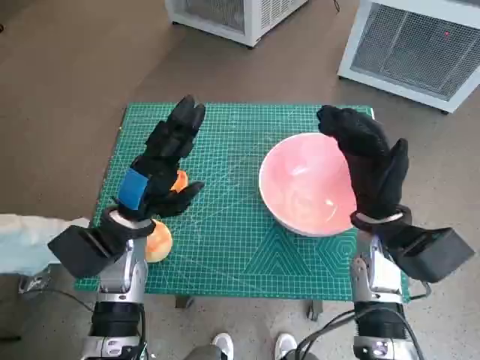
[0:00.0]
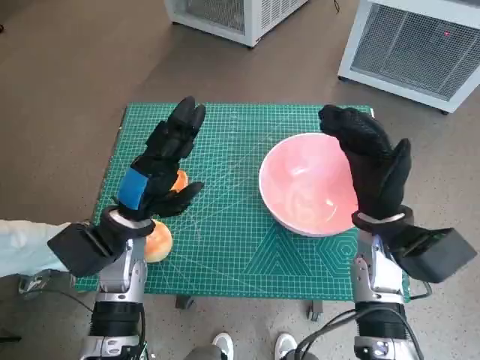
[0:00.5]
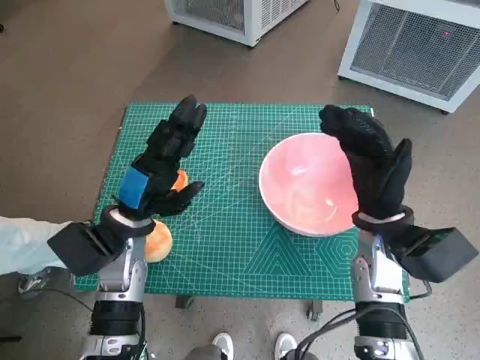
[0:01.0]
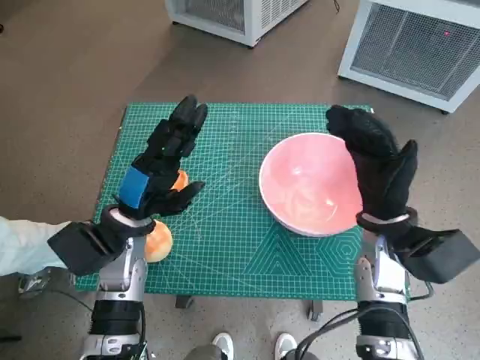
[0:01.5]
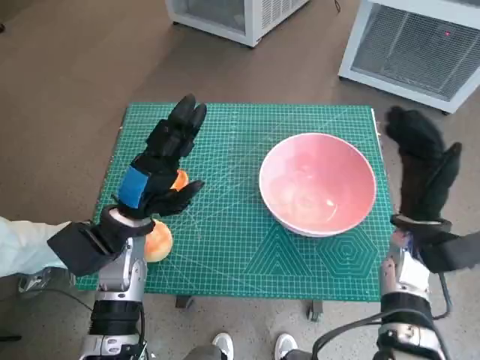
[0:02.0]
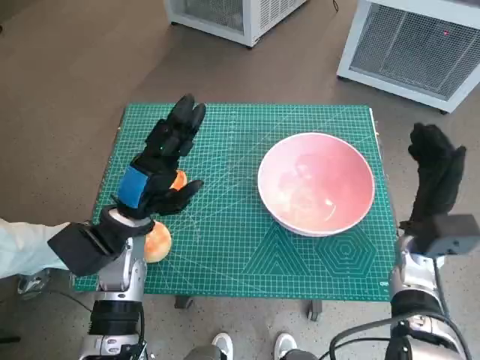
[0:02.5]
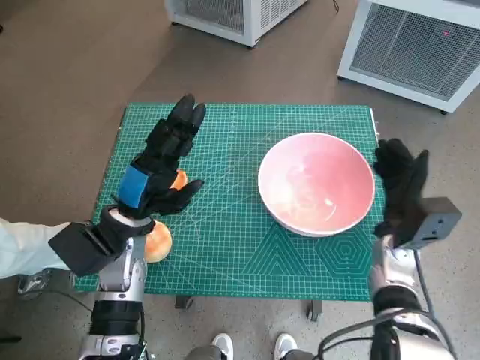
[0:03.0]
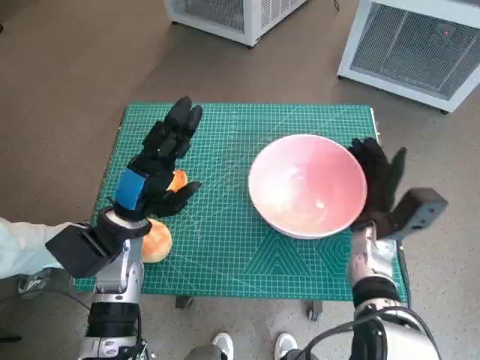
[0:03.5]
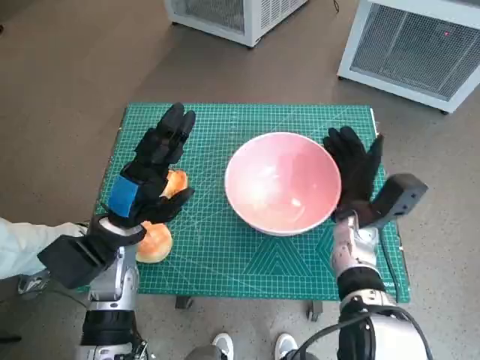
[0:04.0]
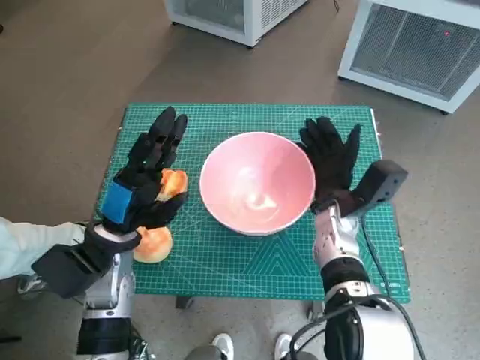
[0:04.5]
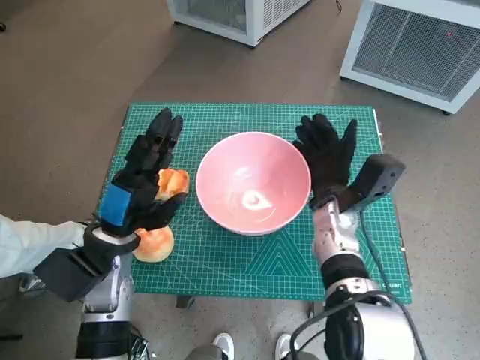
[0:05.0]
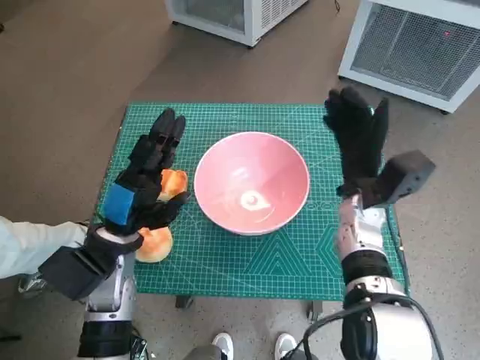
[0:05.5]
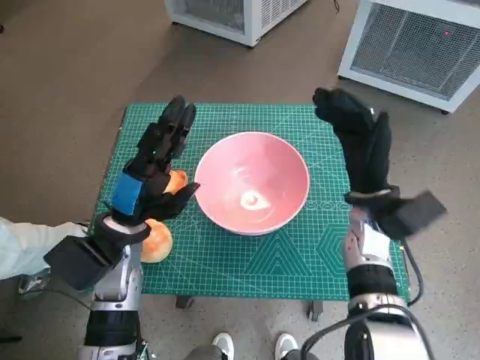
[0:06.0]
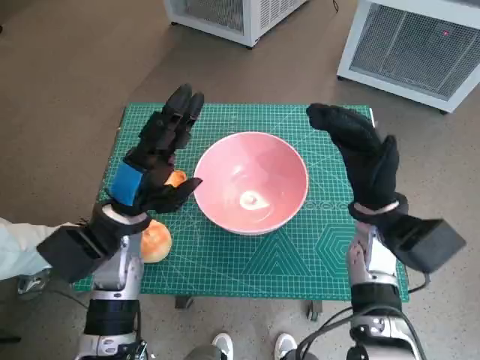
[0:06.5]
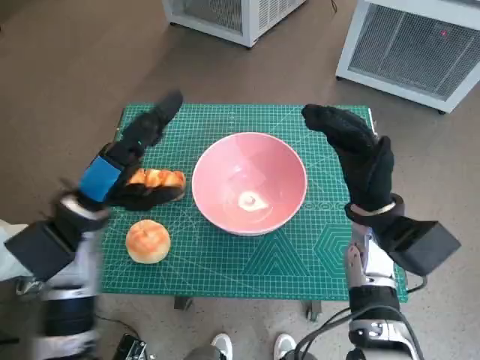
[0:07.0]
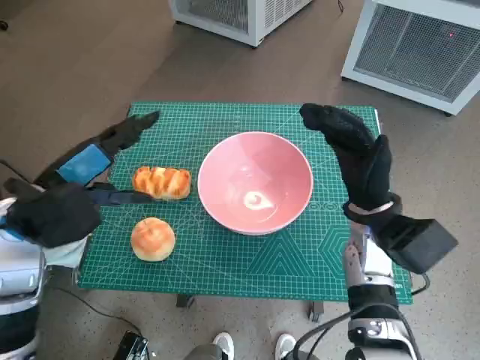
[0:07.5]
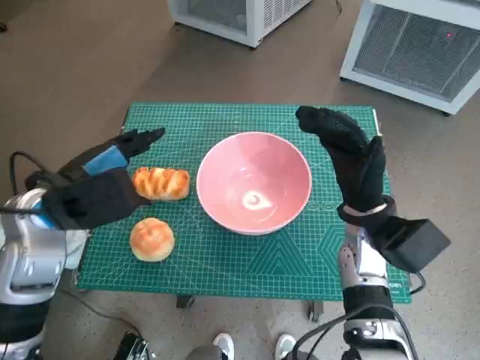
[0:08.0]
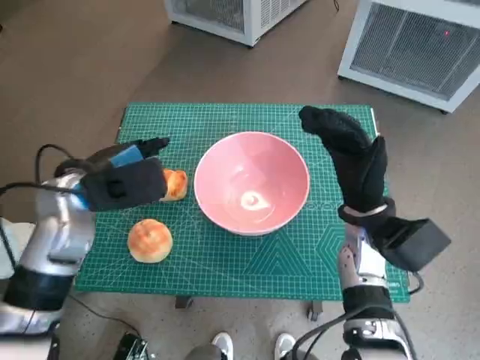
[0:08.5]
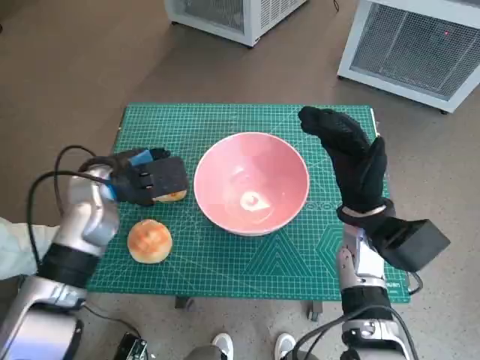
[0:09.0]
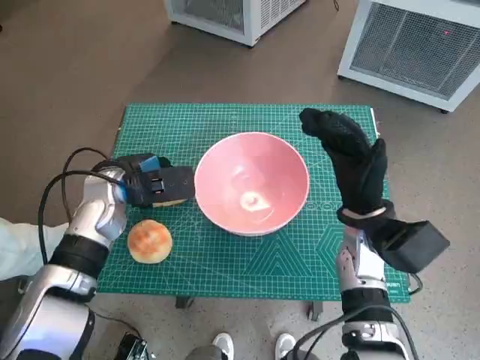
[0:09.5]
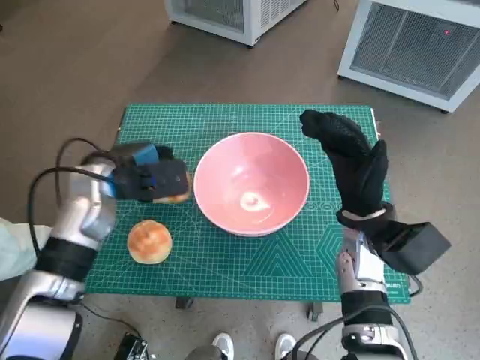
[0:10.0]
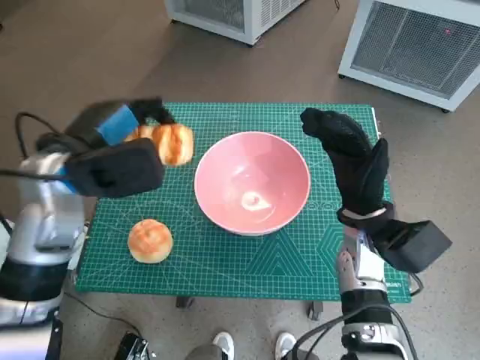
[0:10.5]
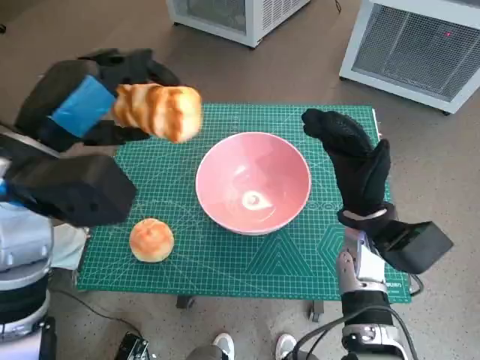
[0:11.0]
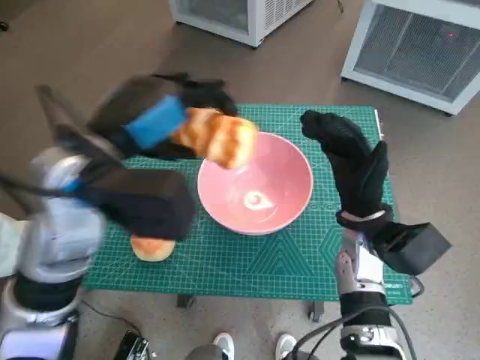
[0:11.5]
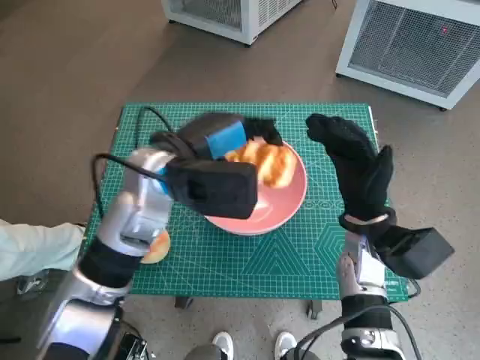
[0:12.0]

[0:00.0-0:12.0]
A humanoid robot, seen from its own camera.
Task of the whole recording: Push the bowl into the center of the table and put the bread into the bowl.
Step, 0:00.0 to 0:05.0: Move the pink bowl to the center of table with right hand.
Step, 0:05.5 to 0:09.0: Grasp the long bread with left hand.
0:02.0 to 0:04.0: The right hand is displaced to the left by some 5 cm.
0:04.0 to 0:06.0: The right hand goes roughly 5 cm upward.
0:06.0 to 0:08.0: The left hand travels upward by some 10 cm.
0:08.0 to 0:10.0: The left hand moves forward and downward, approximately 10 cm.
0:10.0 to 0:12.0: The left hand travels to the right and upward by about 10 cm.

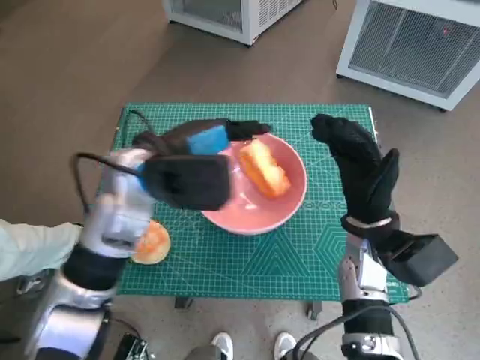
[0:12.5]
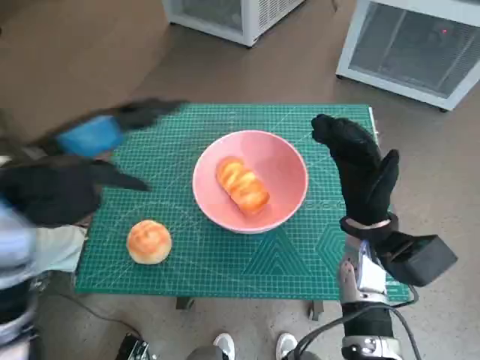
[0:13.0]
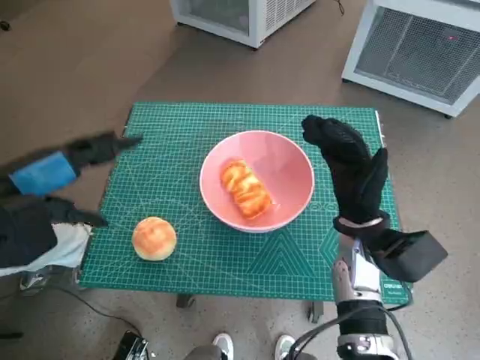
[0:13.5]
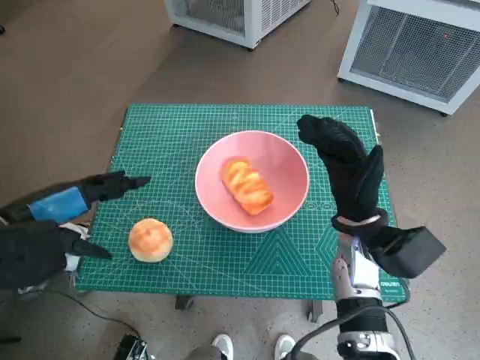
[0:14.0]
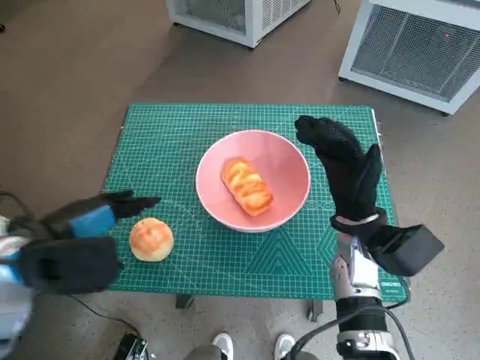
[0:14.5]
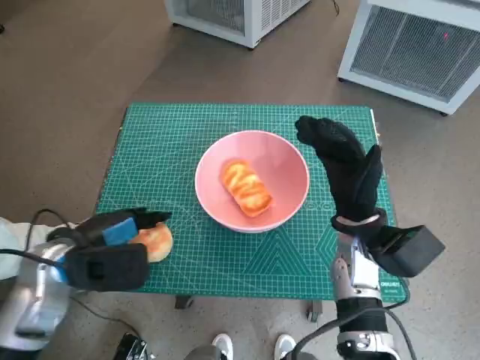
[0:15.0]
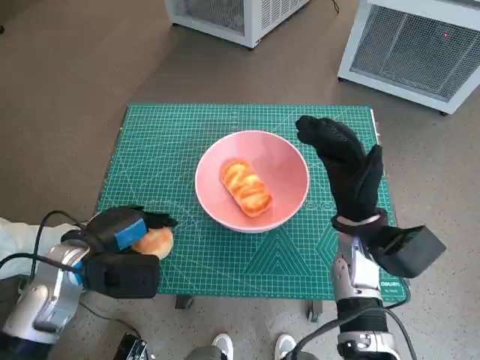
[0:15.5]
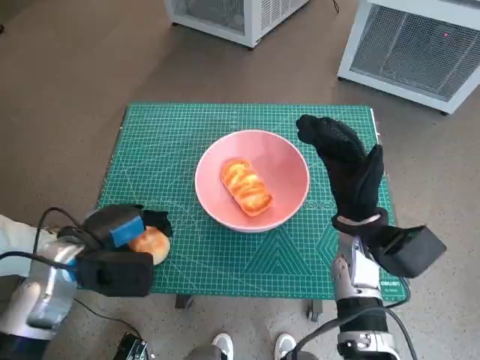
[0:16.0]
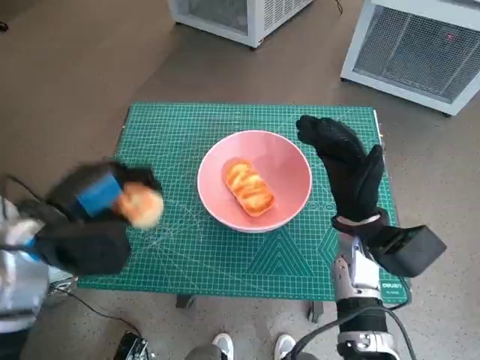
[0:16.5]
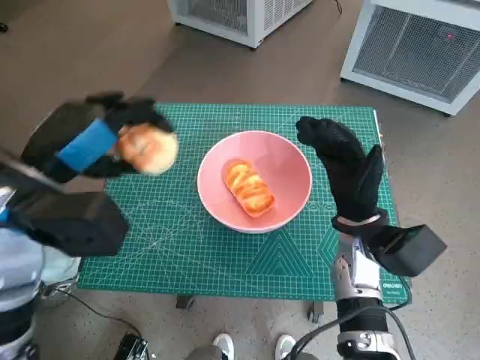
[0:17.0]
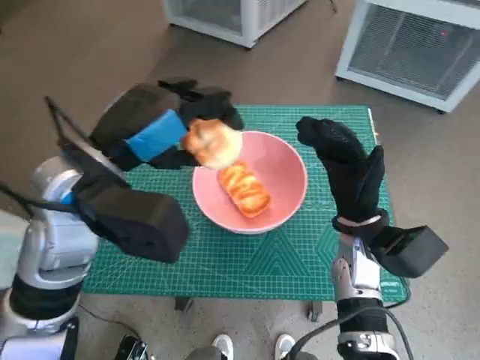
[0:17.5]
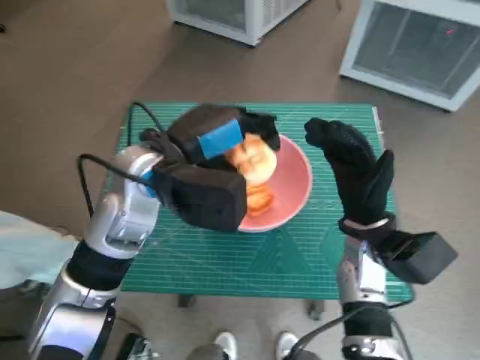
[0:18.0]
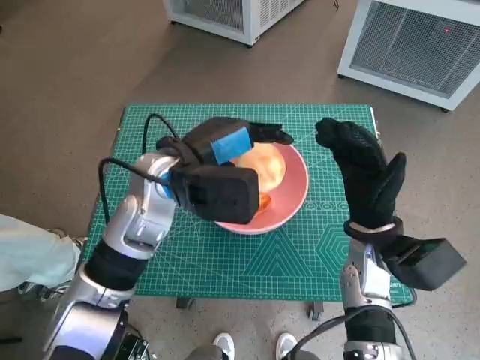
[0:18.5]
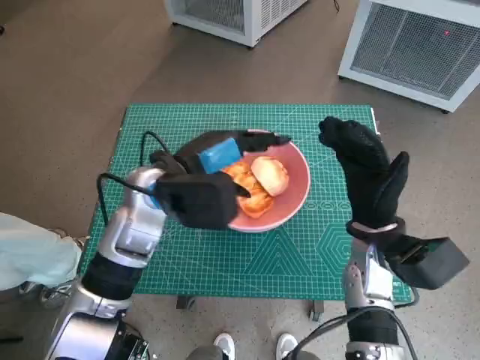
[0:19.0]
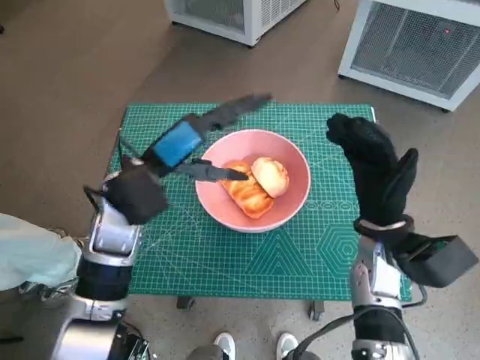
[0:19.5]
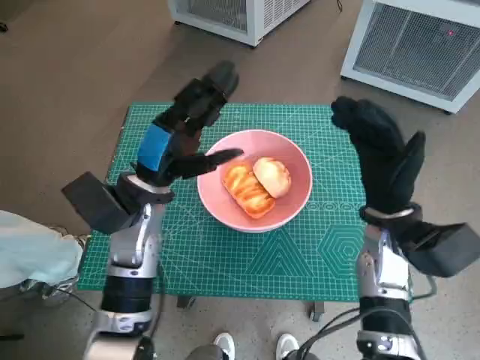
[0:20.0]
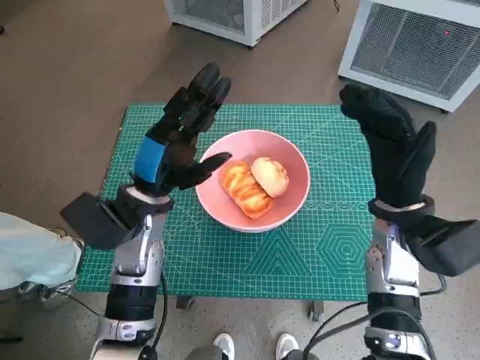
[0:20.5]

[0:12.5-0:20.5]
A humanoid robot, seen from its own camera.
Task of the whole recording: Push the bowl into the center of the table and put the bread into the bowl.
Step, 0:12.5 to 0:15.0: Grasp the round bread with left hand.
Step, 0:15.5 to 0:18.5: Place the round bread in pink bowl with left hand.
0:12.5 to 0:14.5: The left hand goes some 15 cm to the left and backward.
0:14.5 to 0:16.5: The left hand reaches roughly 10 cm downward, then returns.
0:16.5 to 0:18.5: The left hand travels to the right and forward by roughly 15 cm.
0:18.5 to 0:20.5: The left hand goes roughly 5 cm downward.
